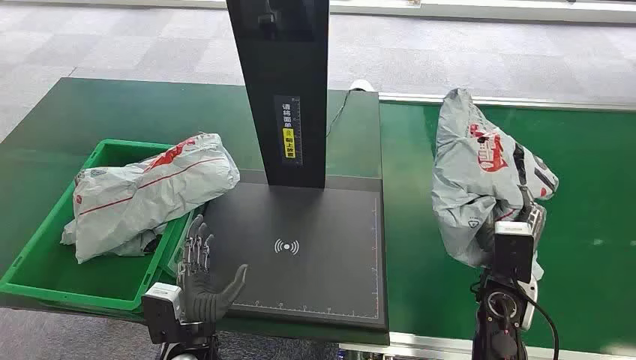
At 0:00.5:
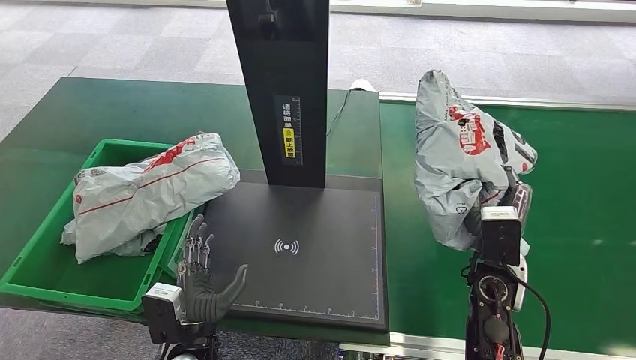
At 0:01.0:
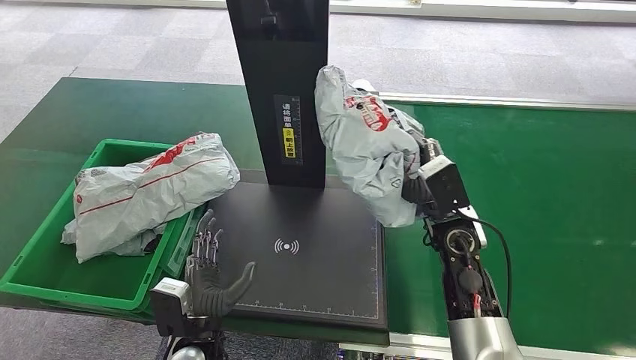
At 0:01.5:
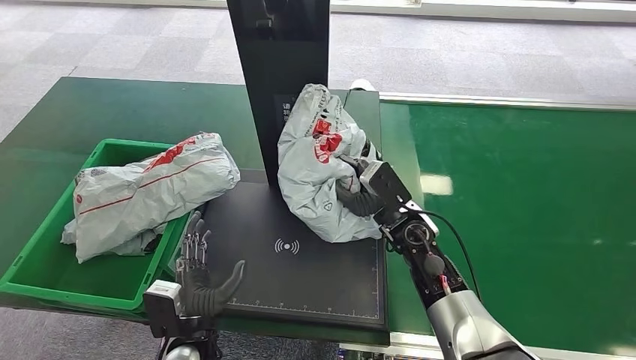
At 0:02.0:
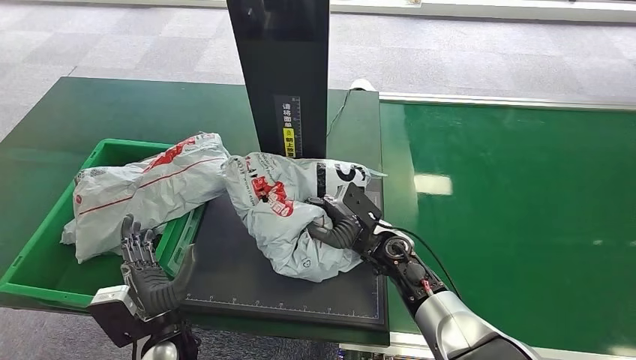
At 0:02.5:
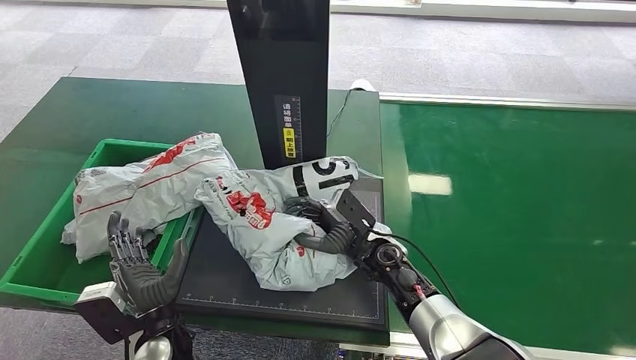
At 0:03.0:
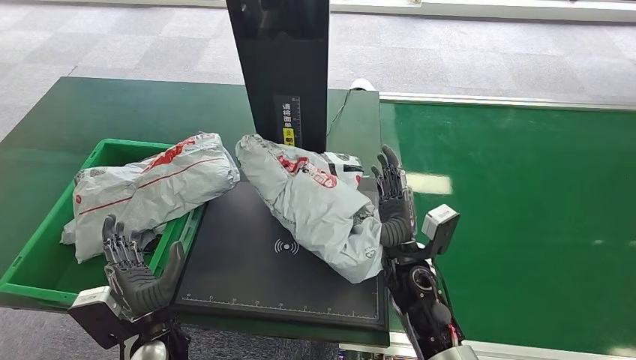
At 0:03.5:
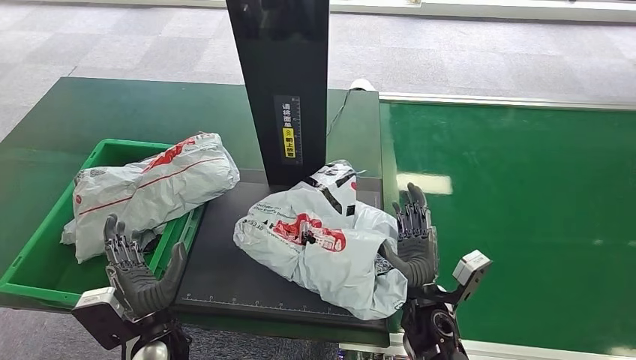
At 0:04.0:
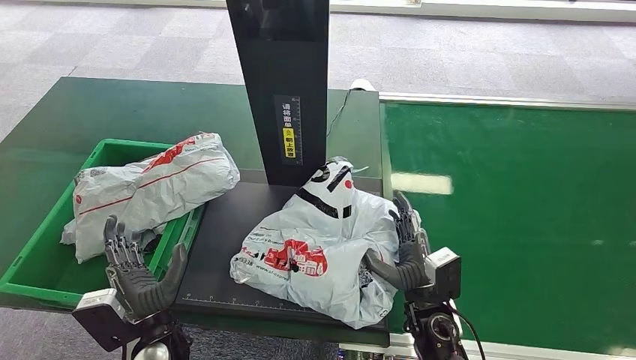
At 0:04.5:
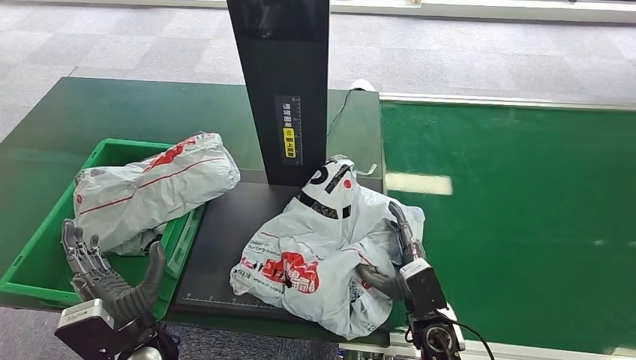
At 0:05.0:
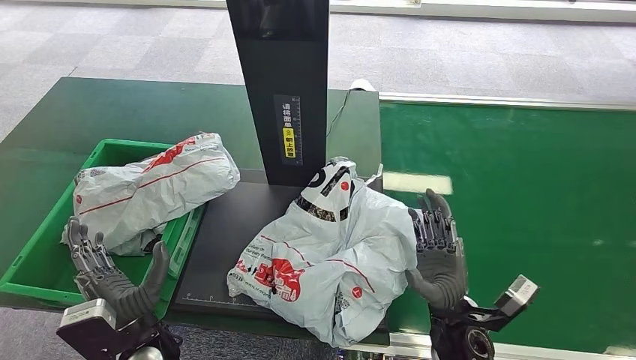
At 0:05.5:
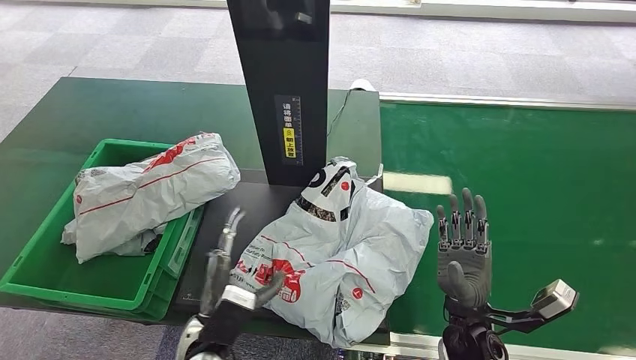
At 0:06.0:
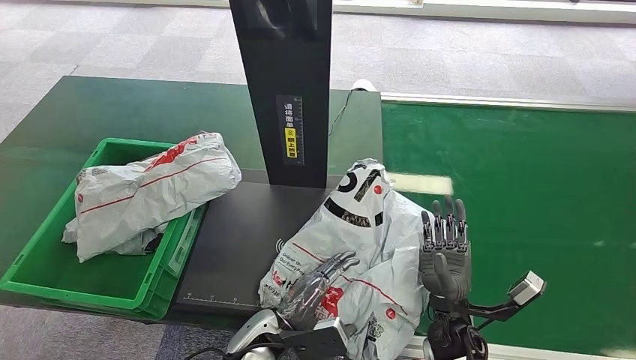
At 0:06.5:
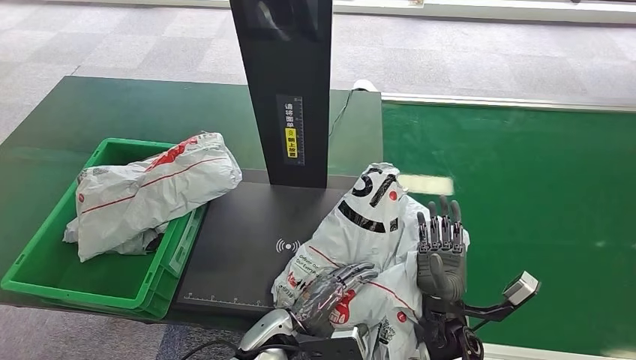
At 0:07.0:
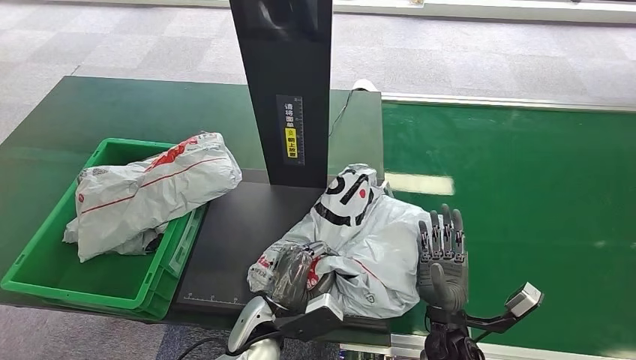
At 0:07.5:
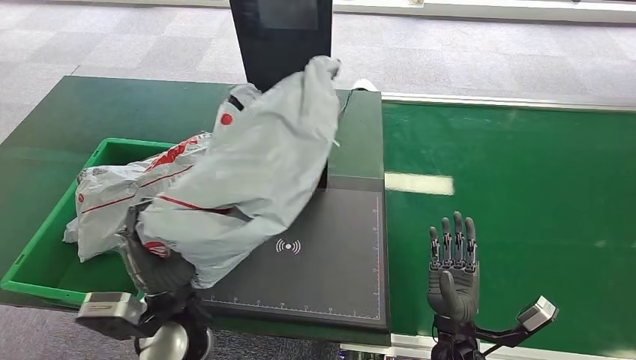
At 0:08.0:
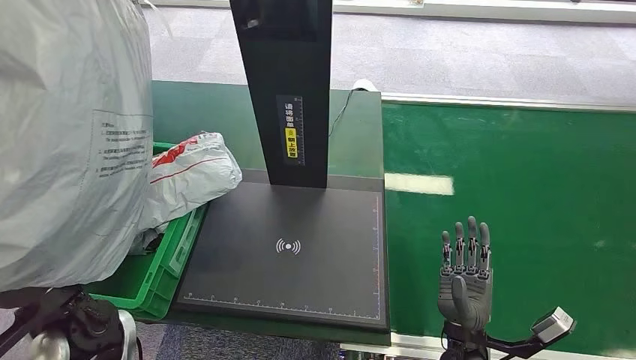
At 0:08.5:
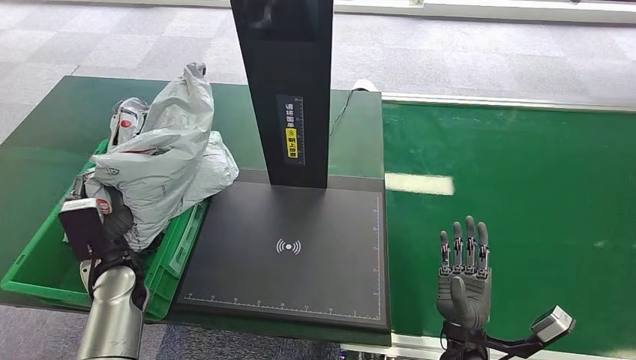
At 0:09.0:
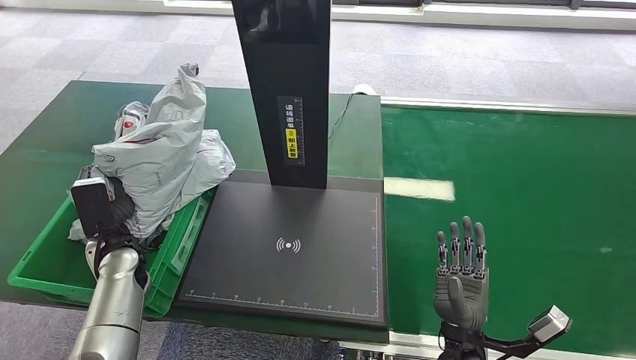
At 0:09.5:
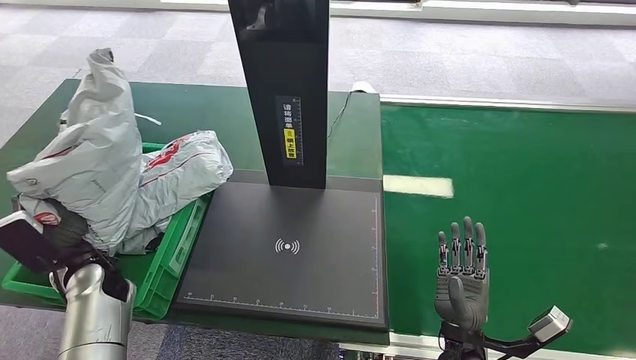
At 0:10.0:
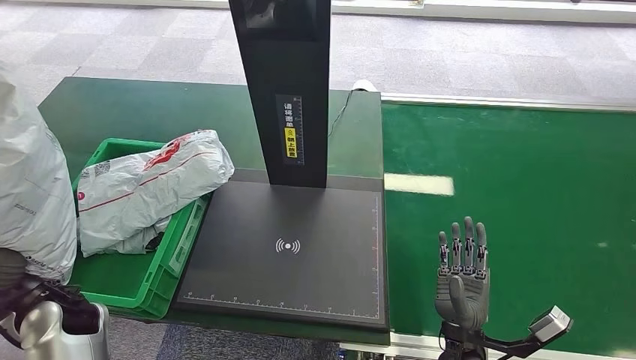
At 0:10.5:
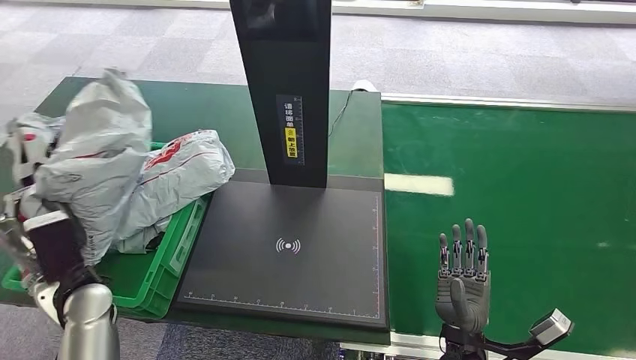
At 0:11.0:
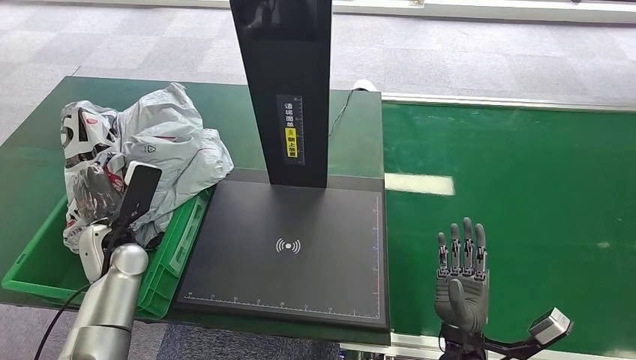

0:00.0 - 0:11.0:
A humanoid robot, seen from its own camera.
Task of the whole recording: Weigh the package on the weighing device and place it in the left basket.
0:02.0 - 0:03.5: The right hand heads backward and to the right, covering about 10 cm.
0:03.5 - 0:05.5: Both hands travel together to the right, some 5 cm.
0:09.0 - 0:11.0: The left hand travels backward and back again, roughly 10 cm each way.

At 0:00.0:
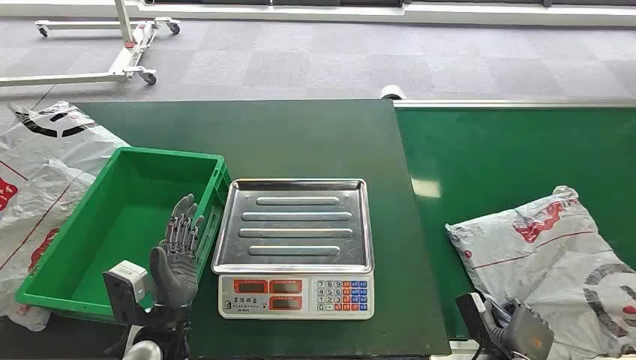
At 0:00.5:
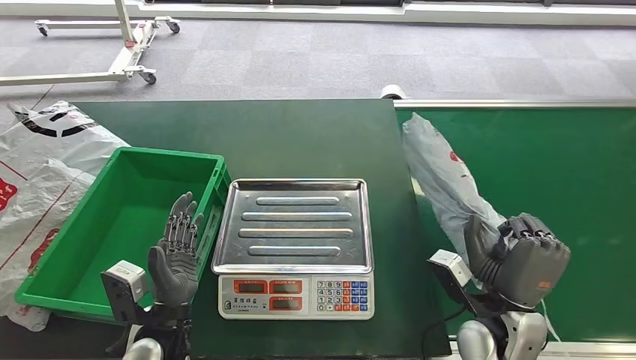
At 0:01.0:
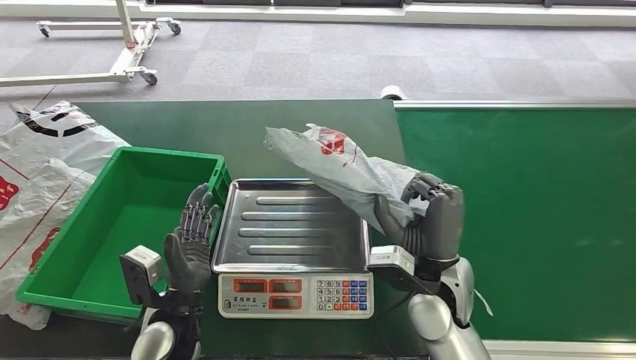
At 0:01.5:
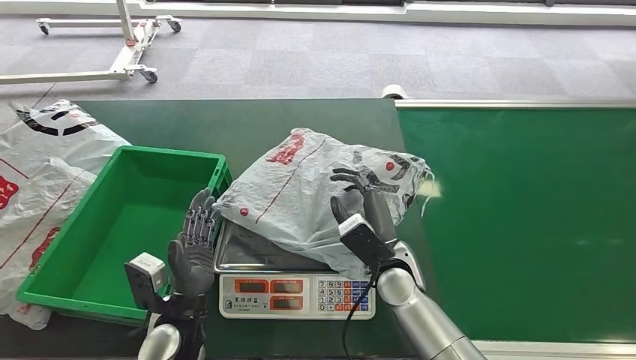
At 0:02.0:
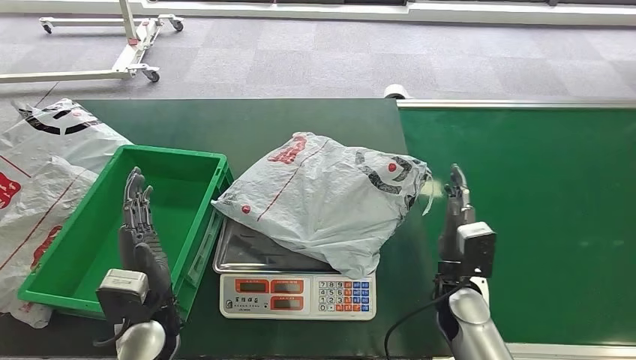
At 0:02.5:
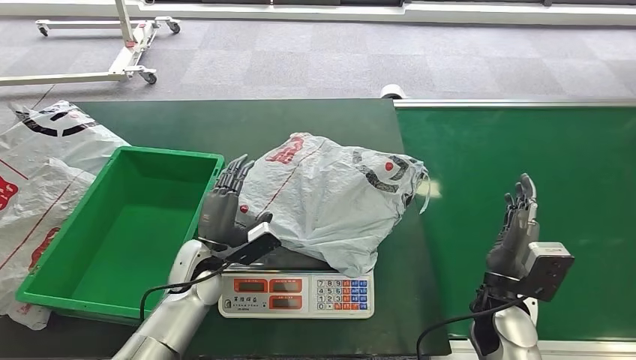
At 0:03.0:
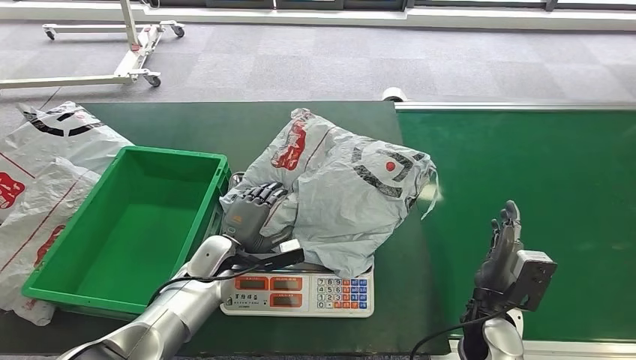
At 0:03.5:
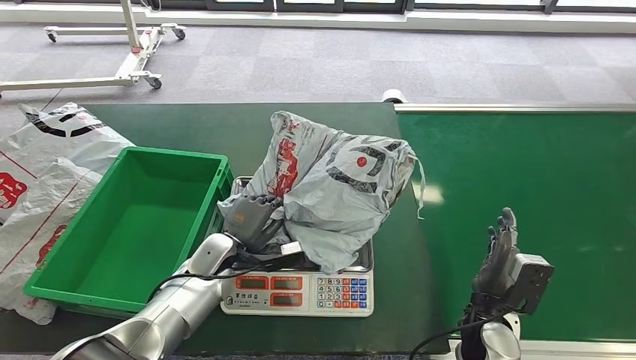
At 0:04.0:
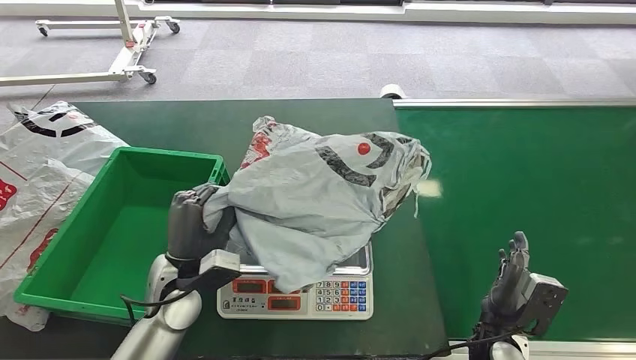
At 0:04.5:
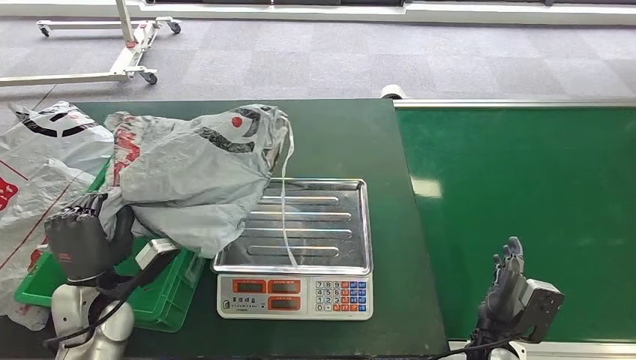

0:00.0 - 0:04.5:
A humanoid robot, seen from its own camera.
Task of the whole recording: Weigh the package on the weighing device and place it in the left basket.
Step, 0:00.0 - 0:00.5: Pick up the package from the conveyor belt.
Step, 0:01.0 - 0:01.5: Place the package onto the inbound machine.
Step, 0:02.0 - 0:04.0: Pick up the package from the inbound machine.
